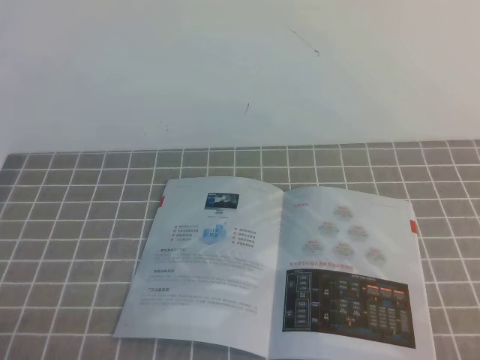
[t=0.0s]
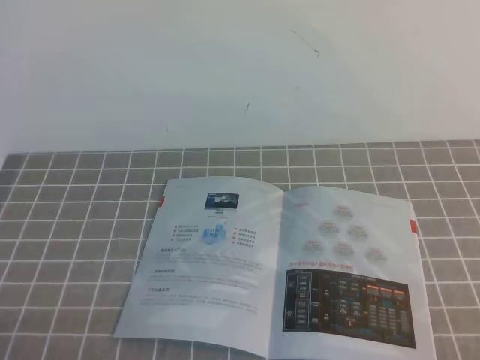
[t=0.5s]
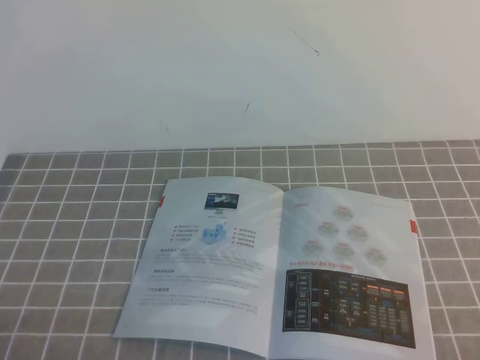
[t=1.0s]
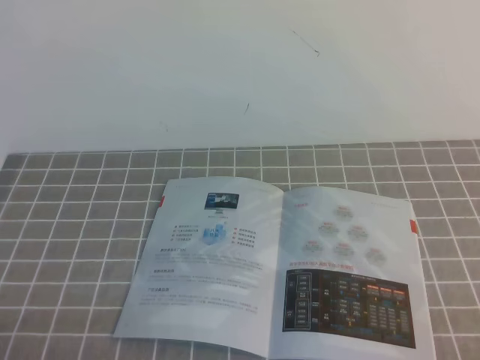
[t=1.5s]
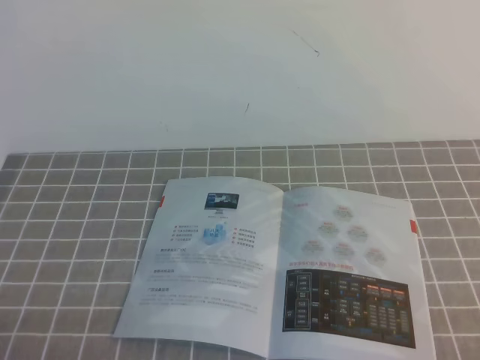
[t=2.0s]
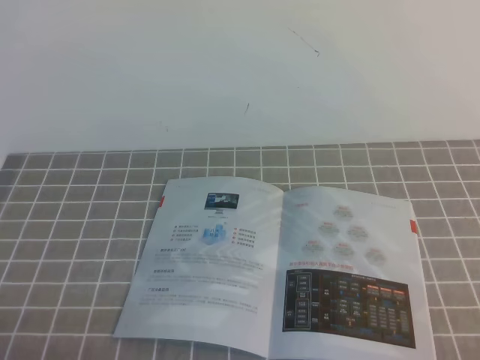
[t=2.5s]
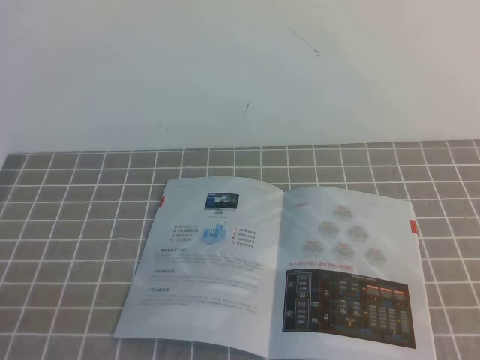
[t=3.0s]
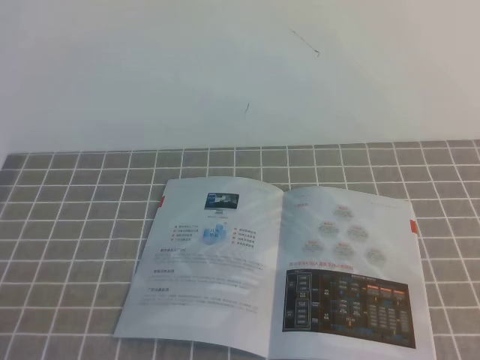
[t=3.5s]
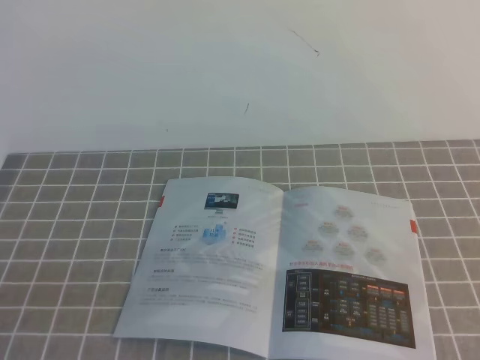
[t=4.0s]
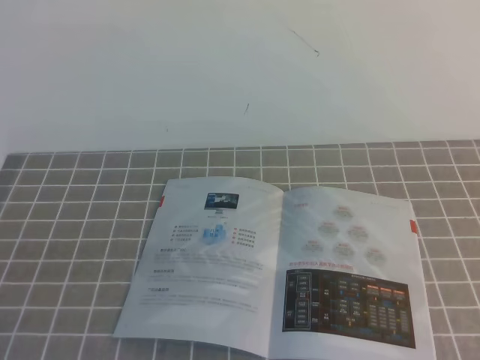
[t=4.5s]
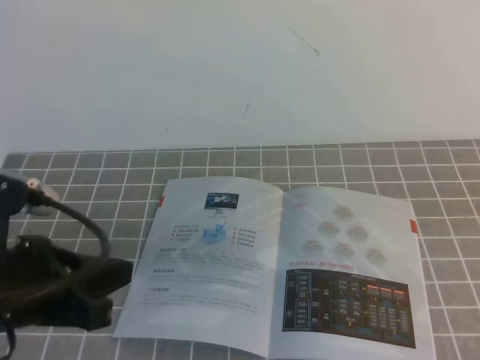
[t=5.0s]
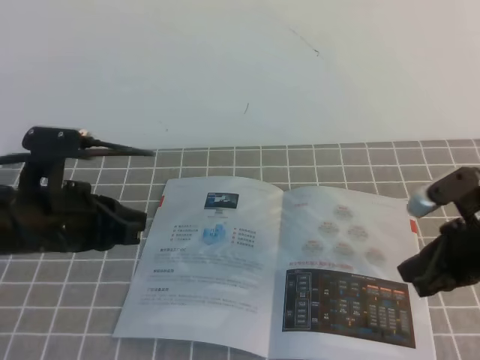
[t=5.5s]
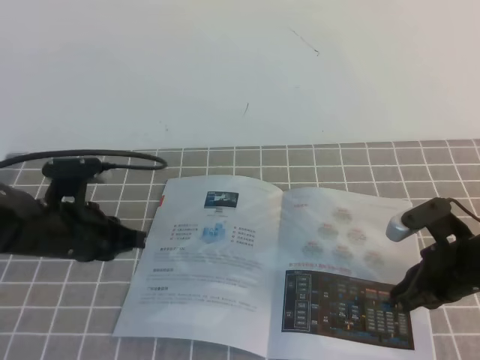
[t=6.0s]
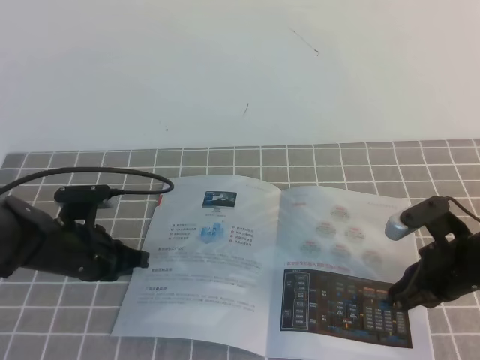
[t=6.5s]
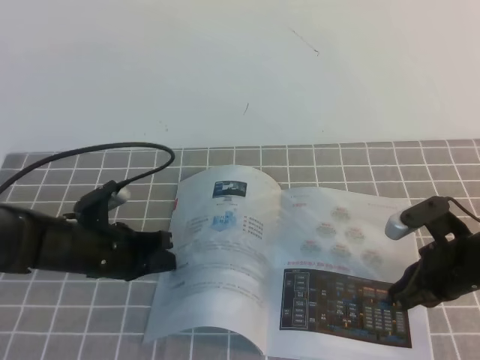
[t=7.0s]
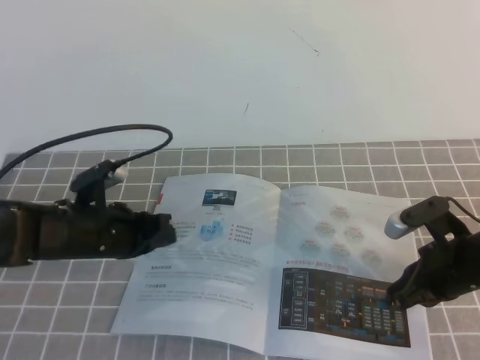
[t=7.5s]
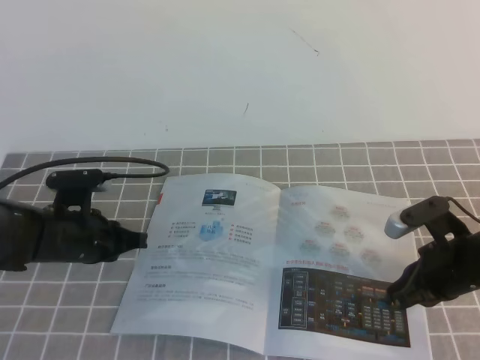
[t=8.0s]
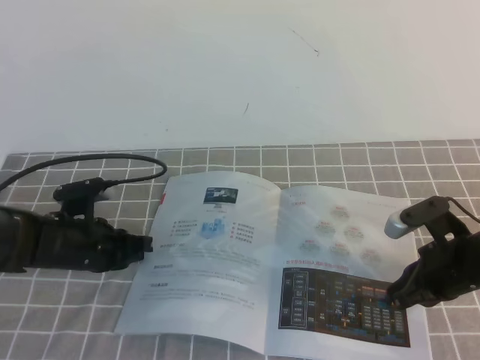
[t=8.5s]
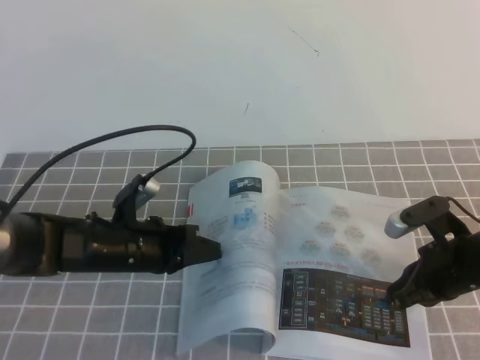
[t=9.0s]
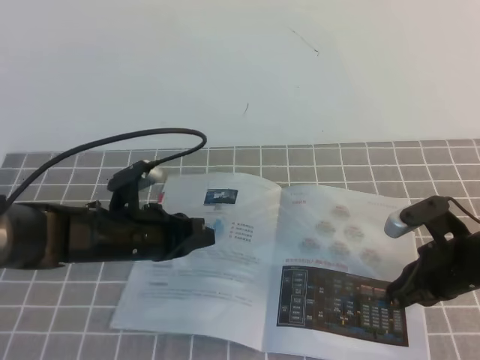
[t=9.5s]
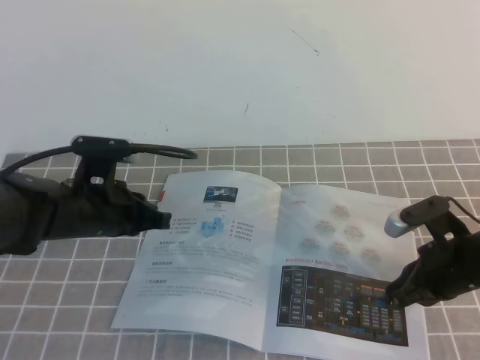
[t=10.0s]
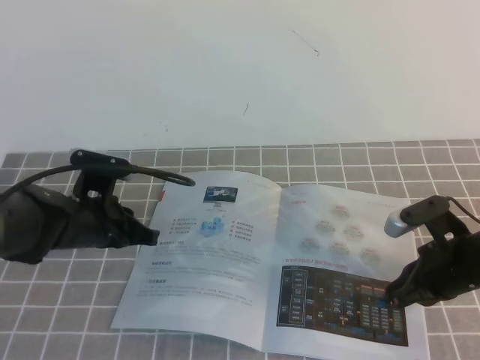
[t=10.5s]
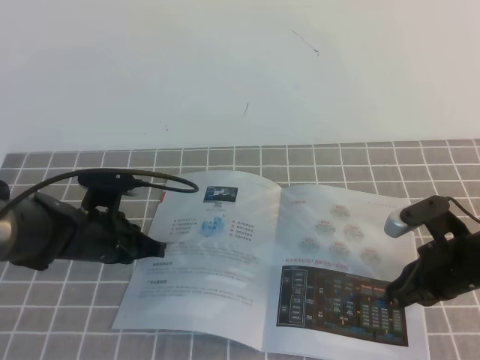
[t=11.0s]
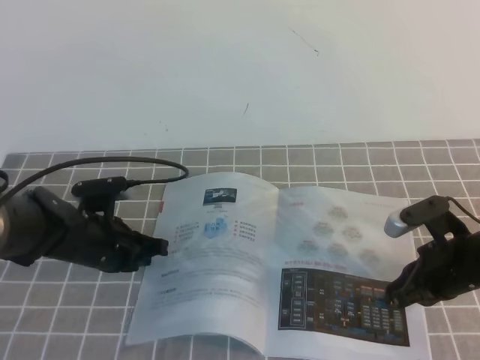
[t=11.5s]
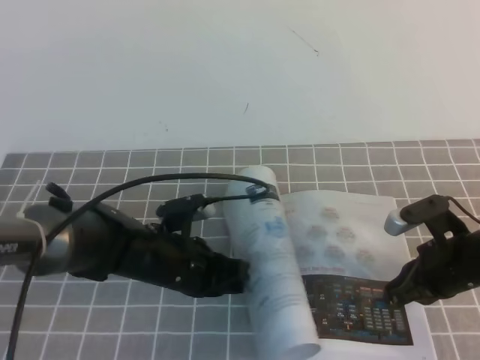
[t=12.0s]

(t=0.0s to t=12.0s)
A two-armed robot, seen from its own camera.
Task of the whole recording: on the grey tablecloth, hold the book with one hand and close it with the other.
t=0.0s - t=2.0s: Both grippers stay put.
t=4.0s - t=6.0s: The right gripper is displaced forward and downward by approximately 35 cm. The left gripper travels forward by approximately 30 cm.
t=6.0s - t=8.0s: The left gripper shifts by approximately 5 cm.
t=8.0s - t=10.0s: The left gripper shifts by roughly 5 cm.
t=10.0s - t=12.0s: The left gripper heads to the right, covering roughly 5 cm.

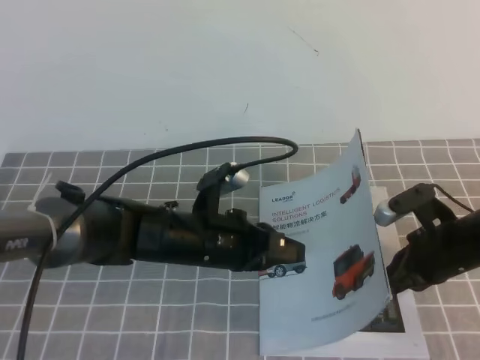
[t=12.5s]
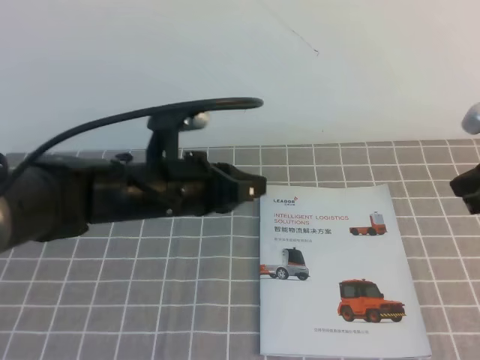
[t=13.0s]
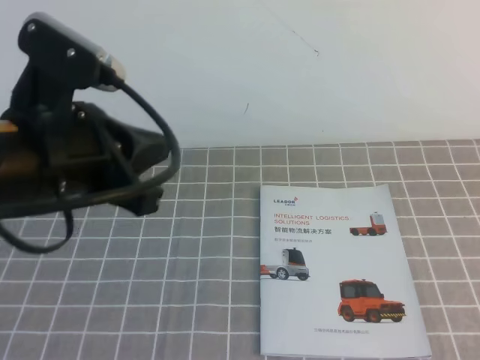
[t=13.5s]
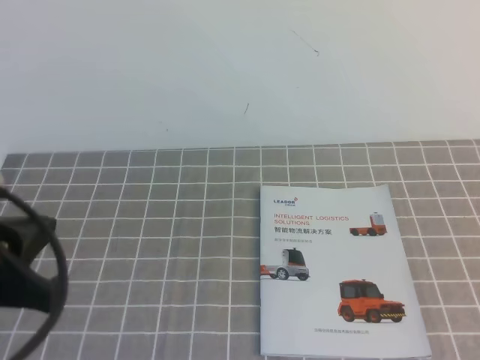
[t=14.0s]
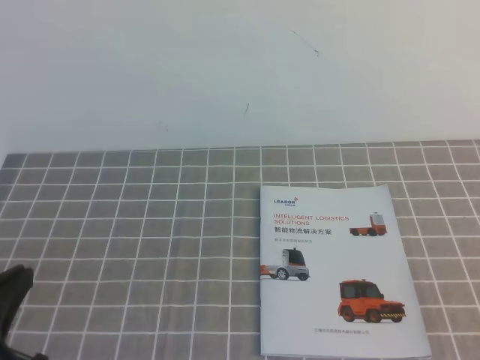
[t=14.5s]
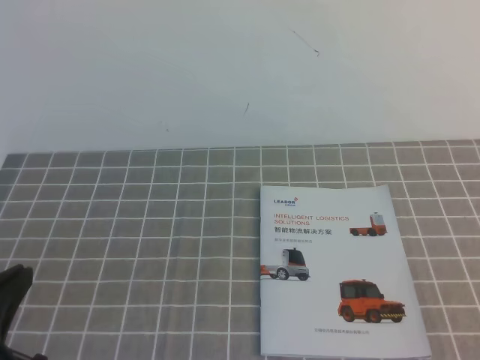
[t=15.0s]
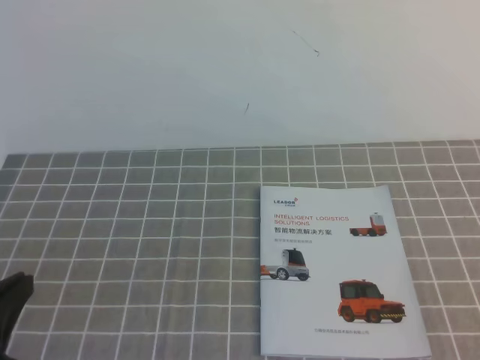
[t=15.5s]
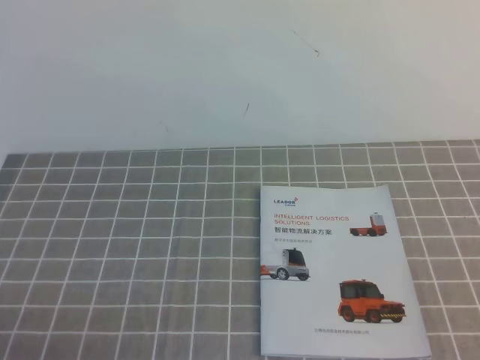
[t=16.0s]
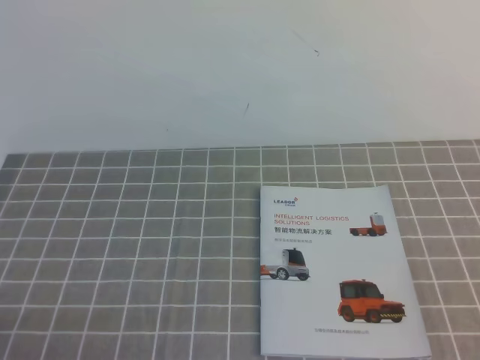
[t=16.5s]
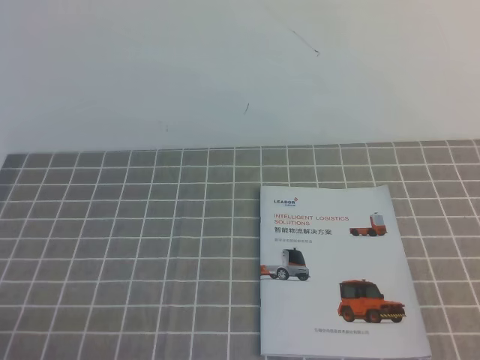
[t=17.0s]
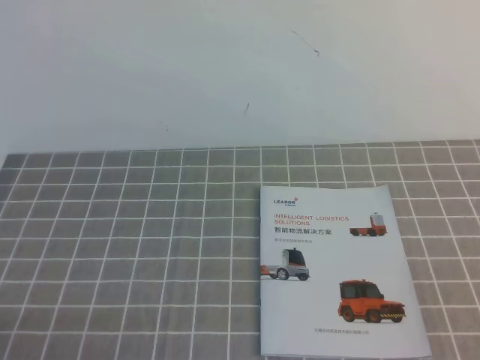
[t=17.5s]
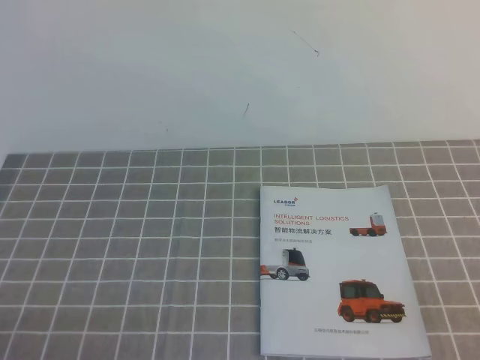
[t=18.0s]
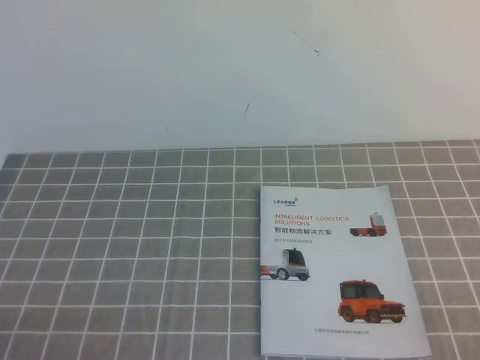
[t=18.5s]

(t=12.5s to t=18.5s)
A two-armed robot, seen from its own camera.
Task of the whole recording: on the grey tablecloth, hold the book with one hand and close it with the other.
Step, t=12.5s - t=18.5s: Close the open book.
t=12.5s - t=14.5s: The left gripper travels backward, to the left and upward by about 30 cm, while the right gripper heads backward and upward, covering about 30 cm.
t=14.5s - t=16.5s: The left gripper heads downward and backward, covering about 10 cm.
